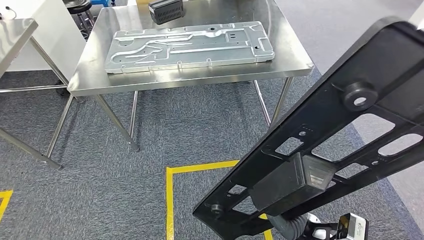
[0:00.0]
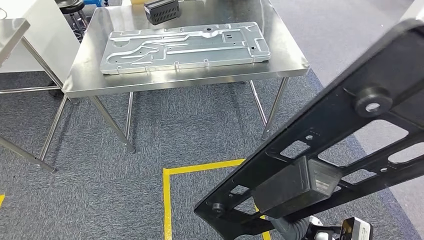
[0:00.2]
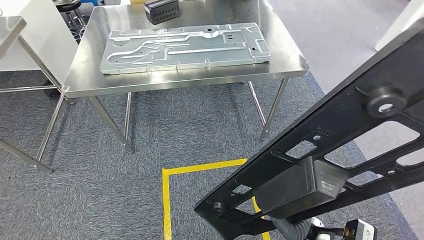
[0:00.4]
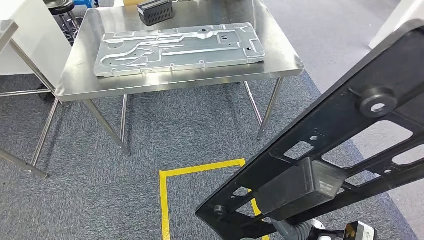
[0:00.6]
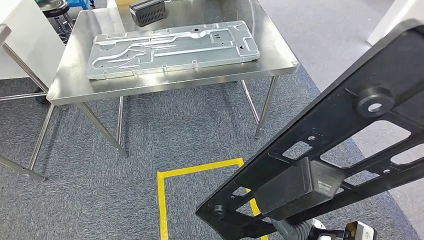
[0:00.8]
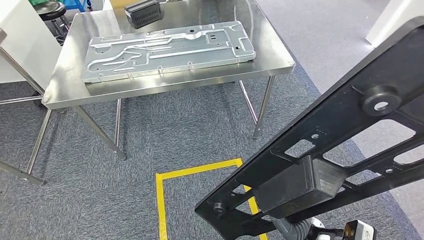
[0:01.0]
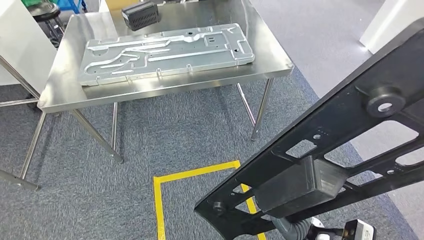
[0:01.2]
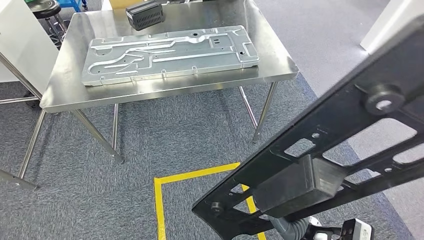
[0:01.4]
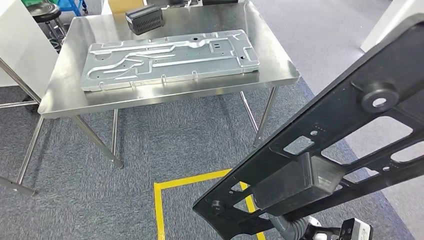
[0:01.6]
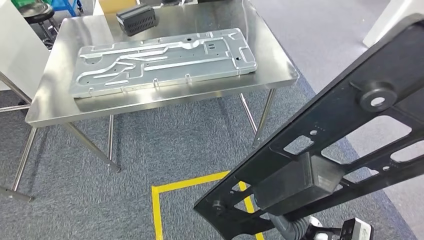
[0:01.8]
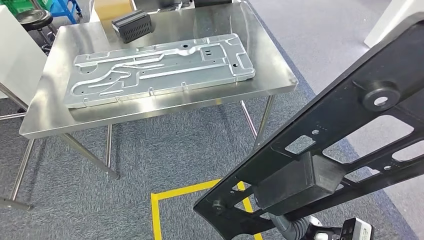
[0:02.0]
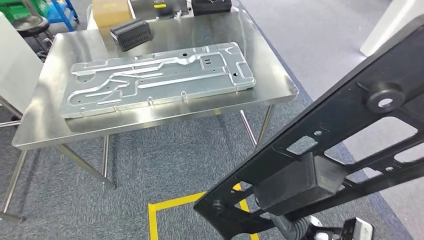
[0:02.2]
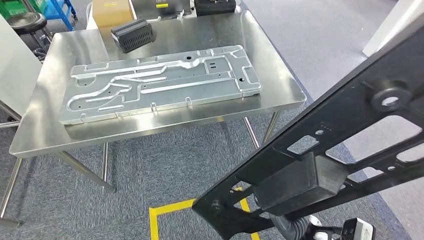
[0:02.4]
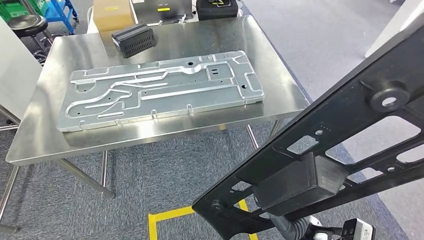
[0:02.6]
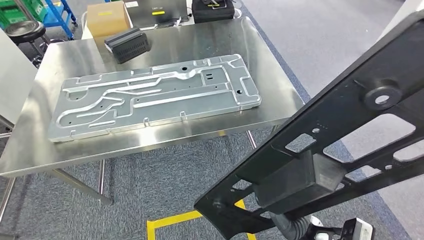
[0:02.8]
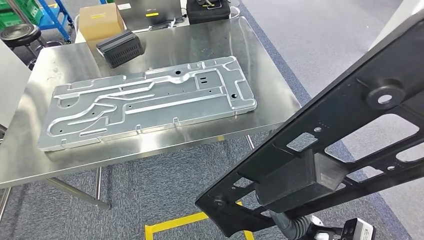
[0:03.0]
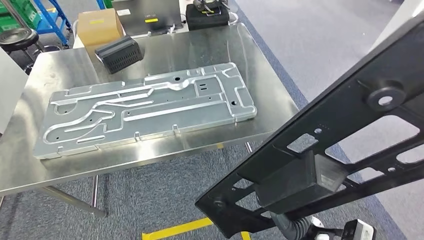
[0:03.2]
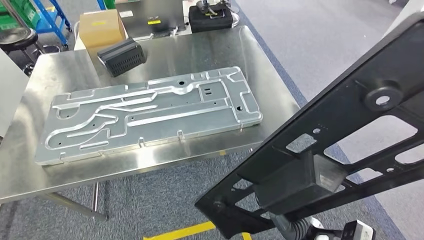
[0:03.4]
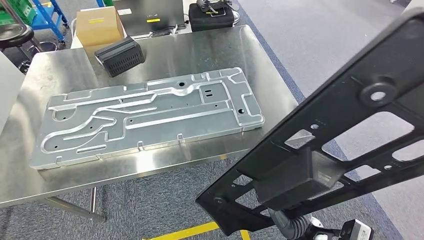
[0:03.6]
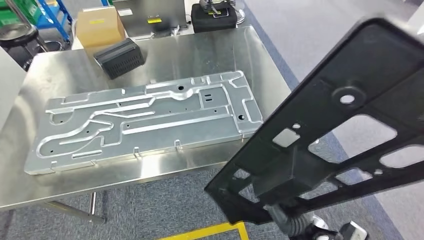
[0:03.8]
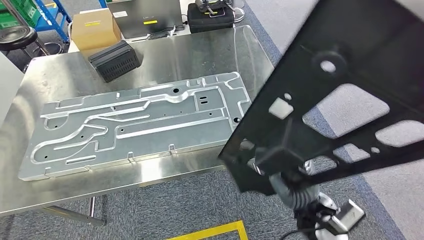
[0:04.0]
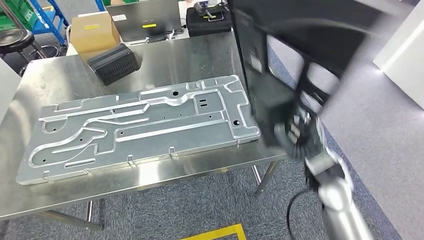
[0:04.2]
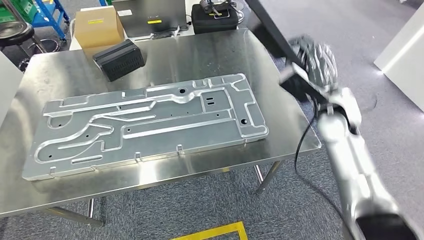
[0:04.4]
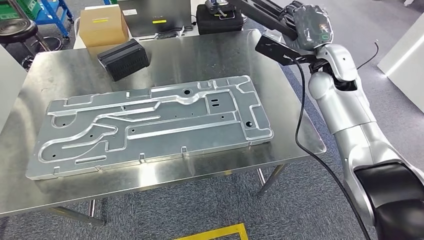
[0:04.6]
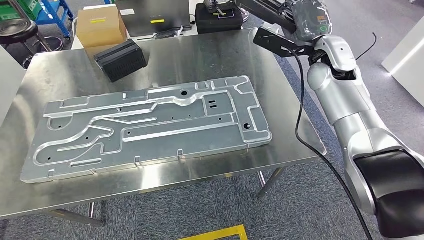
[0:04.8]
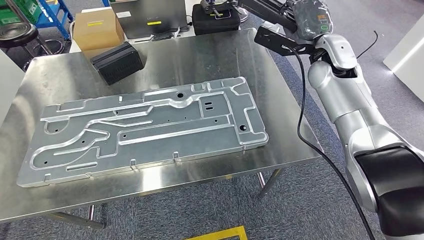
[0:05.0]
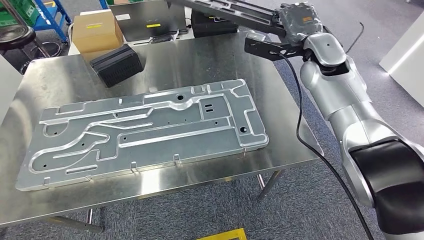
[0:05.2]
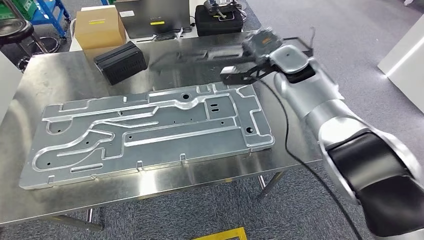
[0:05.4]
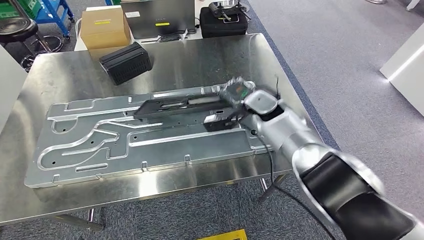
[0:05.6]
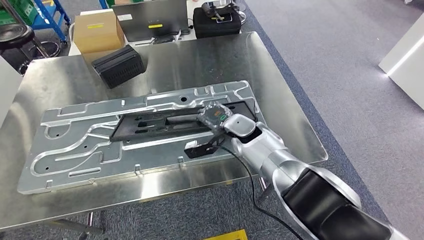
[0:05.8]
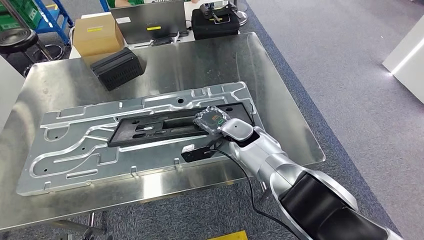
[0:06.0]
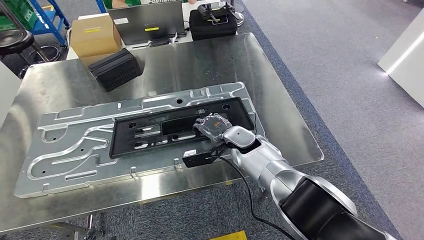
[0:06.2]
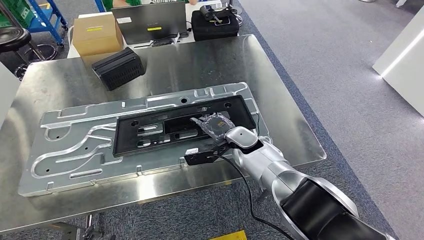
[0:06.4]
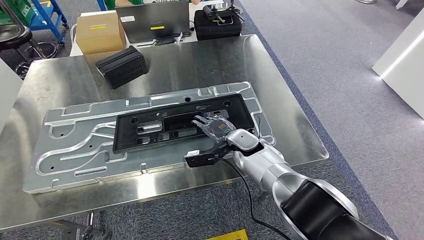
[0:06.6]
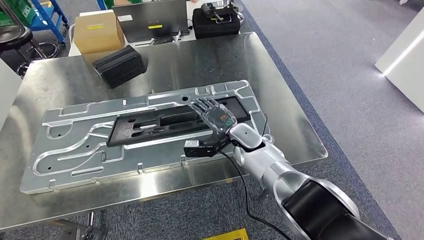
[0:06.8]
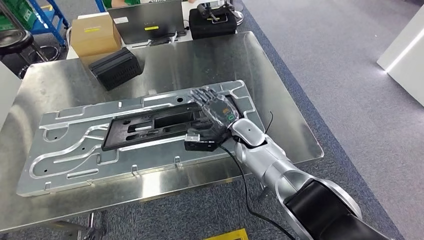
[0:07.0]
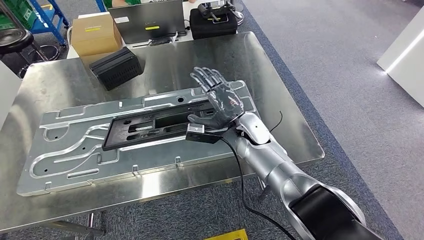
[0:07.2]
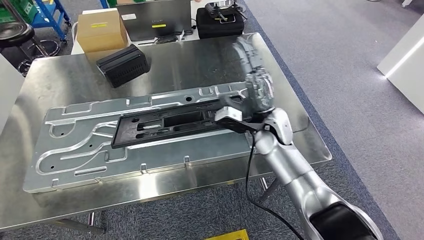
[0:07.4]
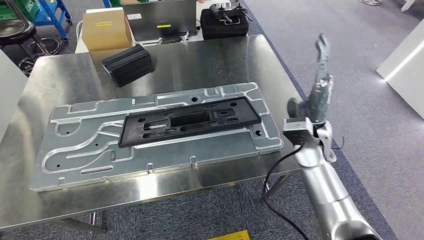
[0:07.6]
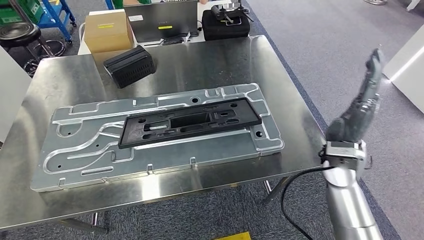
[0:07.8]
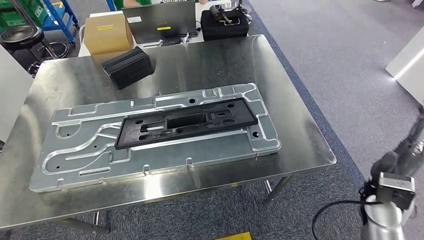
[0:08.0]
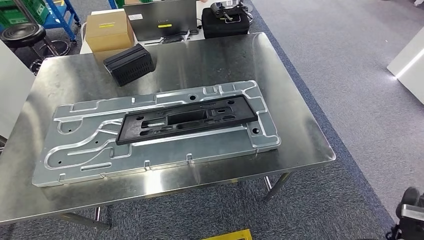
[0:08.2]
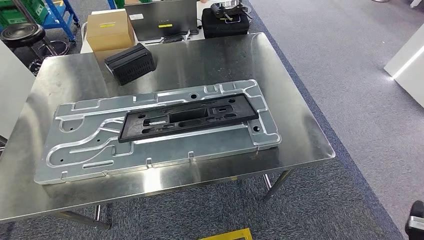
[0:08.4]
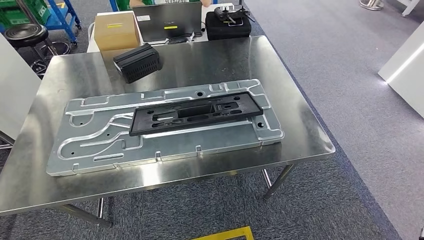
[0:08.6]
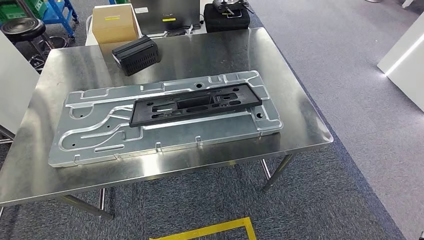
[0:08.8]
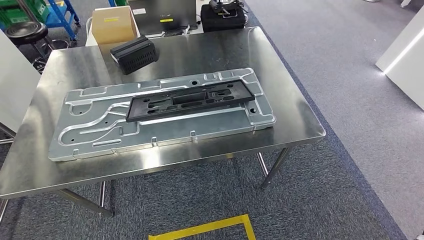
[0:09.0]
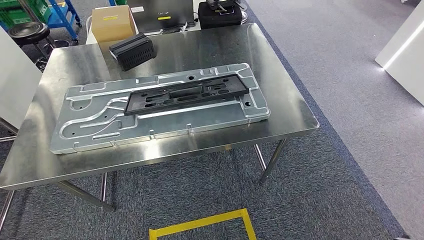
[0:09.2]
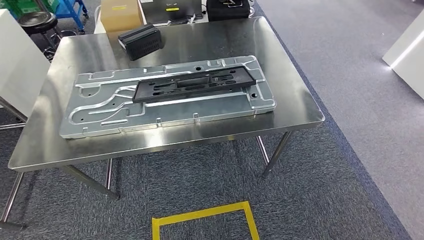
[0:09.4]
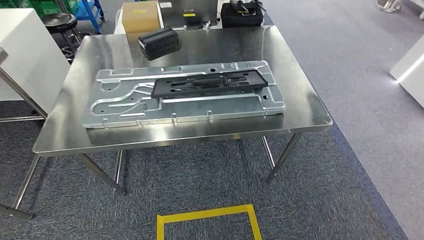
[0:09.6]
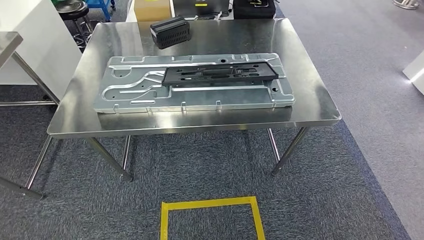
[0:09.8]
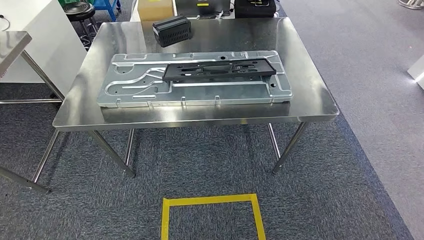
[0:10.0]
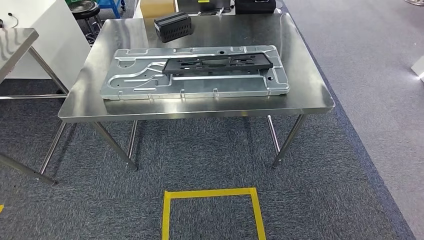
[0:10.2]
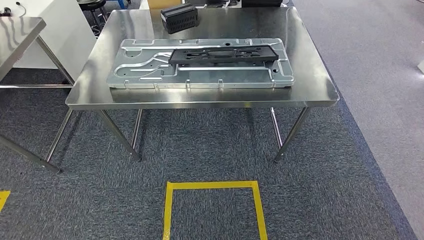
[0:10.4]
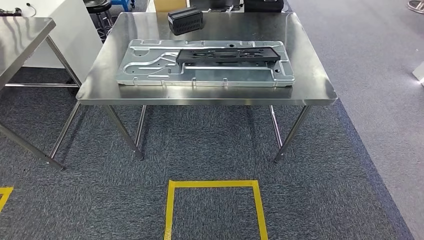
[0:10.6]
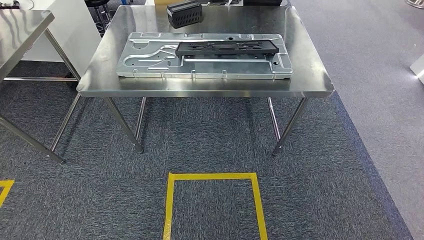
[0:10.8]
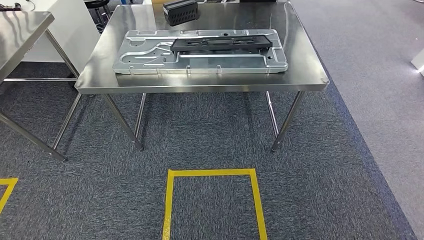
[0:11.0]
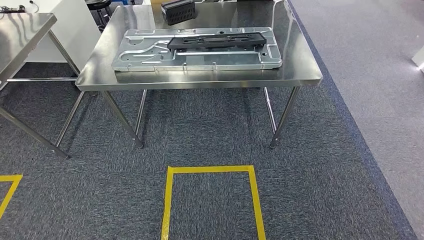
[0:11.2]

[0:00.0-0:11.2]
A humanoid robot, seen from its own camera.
Step, 0:00.0 to 0:04.4: Move the large material to the workbench.
Step, 0:04.6 to 0:08.4: Insert the large material into the corresponding slot on the workbench.

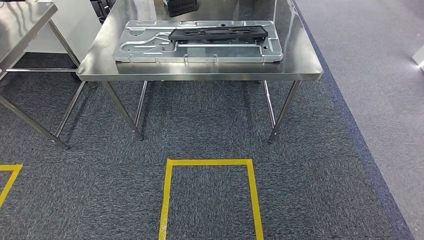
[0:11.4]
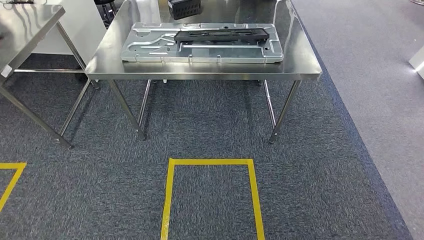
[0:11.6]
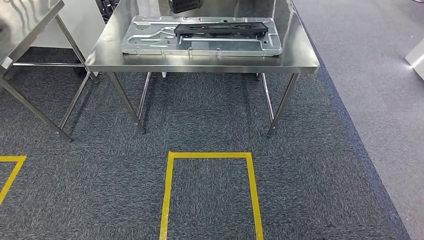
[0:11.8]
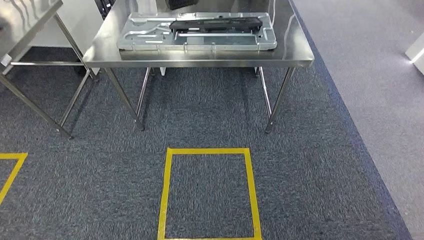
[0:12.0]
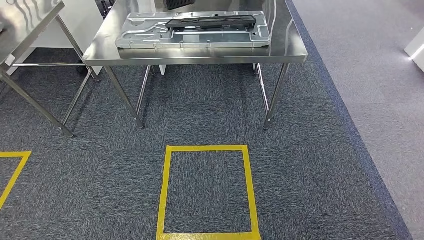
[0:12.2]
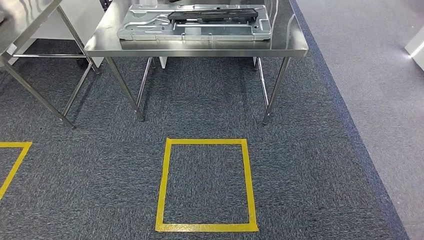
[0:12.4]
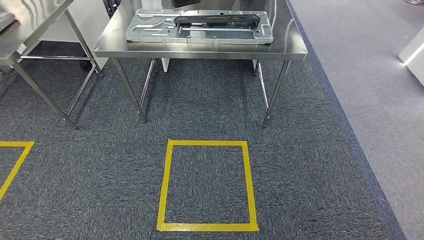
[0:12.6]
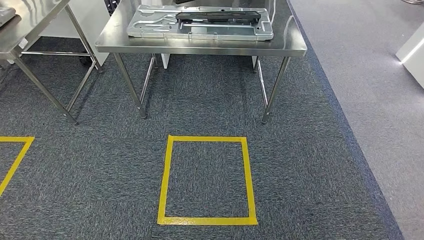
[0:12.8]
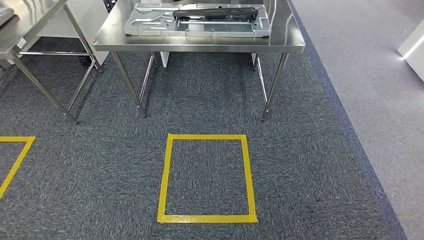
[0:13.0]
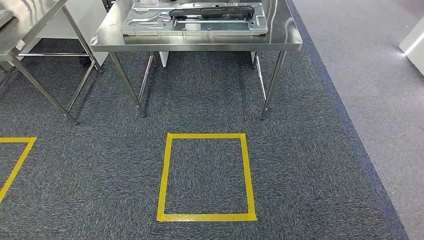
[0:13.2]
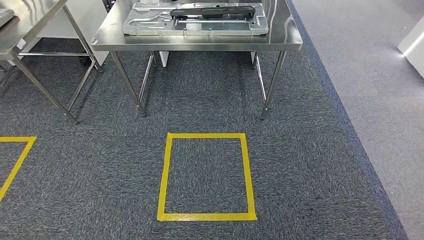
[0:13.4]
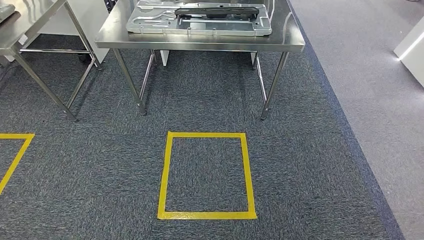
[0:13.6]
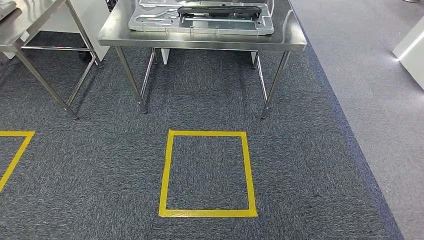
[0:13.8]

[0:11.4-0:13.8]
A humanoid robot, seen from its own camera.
Step, 0:11.4 to 0:13.8: Move to the initial position of the shelf.
0:12.6 to 0:13.8: Both hands stay put.

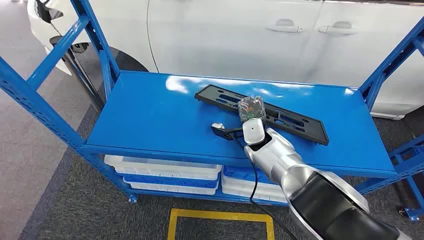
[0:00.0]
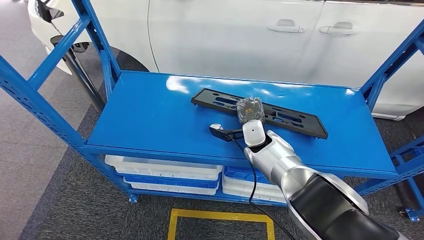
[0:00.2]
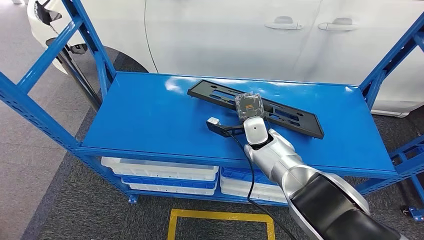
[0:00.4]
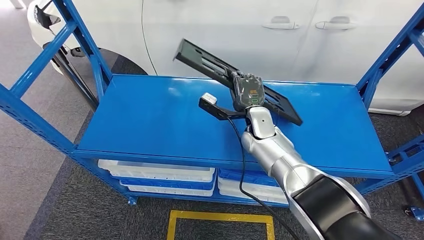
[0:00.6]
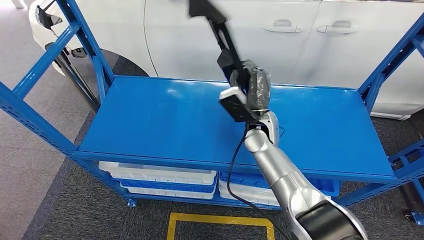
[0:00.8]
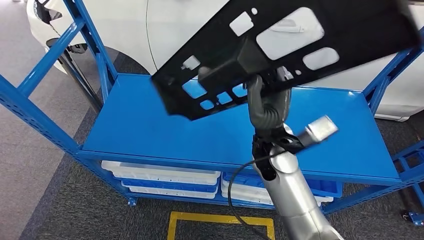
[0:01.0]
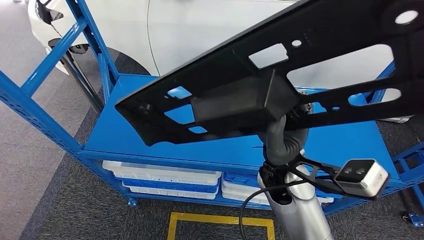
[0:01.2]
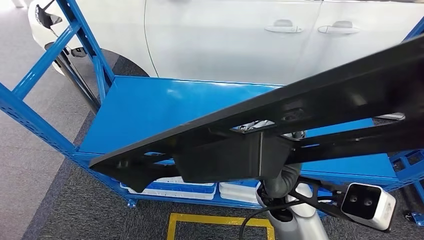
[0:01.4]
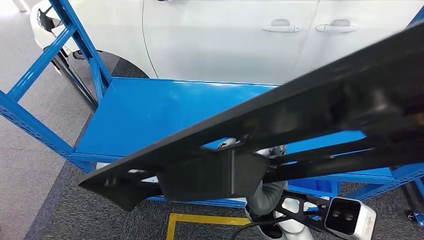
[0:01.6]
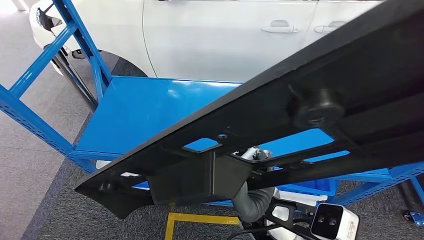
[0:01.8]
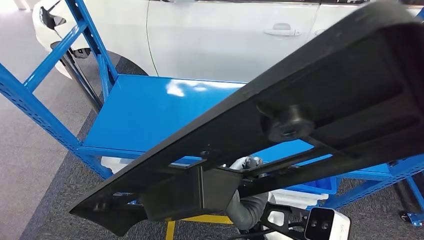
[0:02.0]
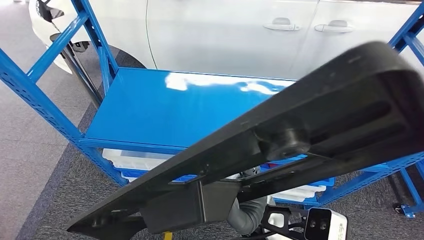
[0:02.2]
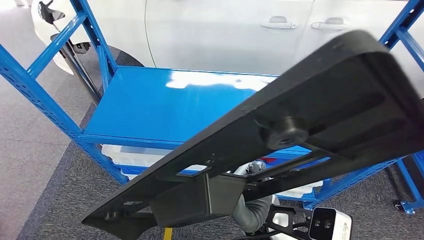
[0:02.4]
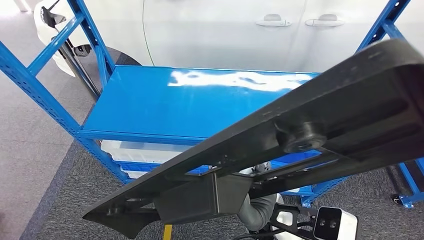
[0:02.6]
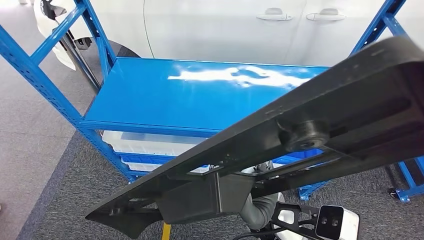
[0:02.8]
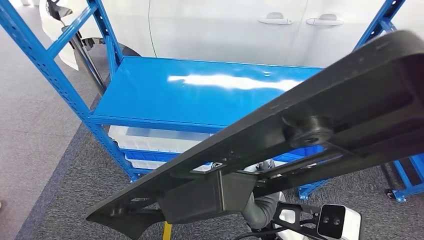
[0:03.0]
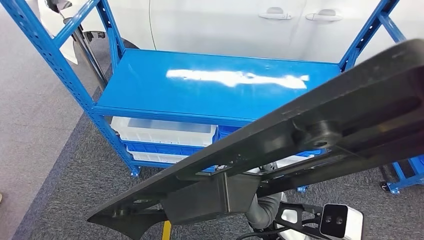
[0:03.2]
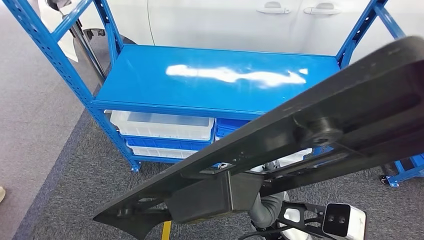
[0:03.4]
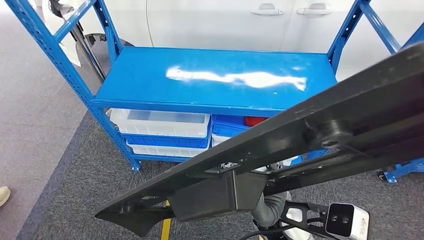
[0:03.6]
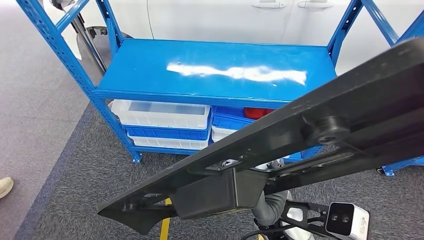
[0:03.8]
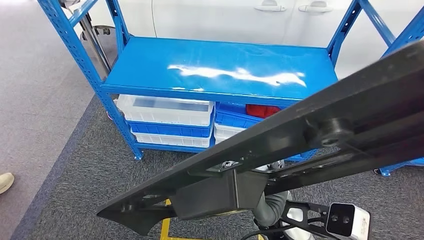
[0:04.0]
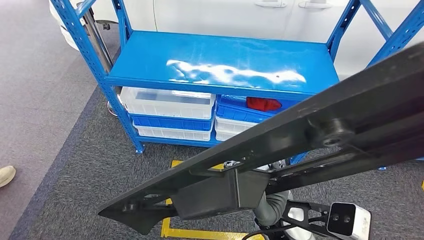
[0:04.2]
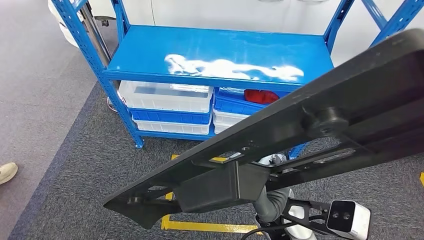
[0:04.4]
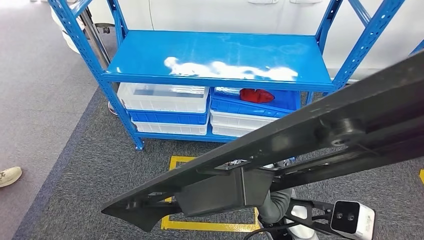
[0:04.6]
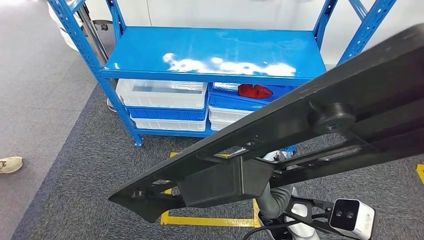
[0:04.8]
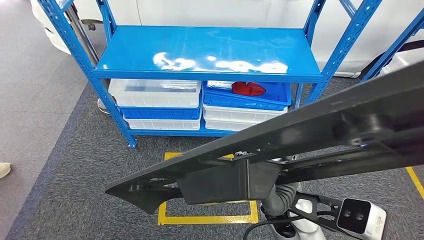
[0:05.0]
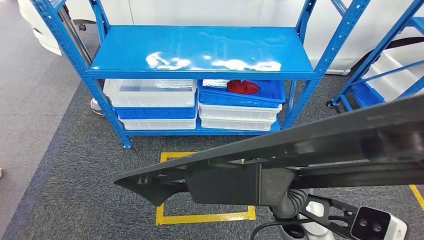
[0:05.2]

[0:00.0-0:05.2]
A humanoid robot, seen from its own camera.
Step, 0:00.0 to 0:02.0: Pick up the large material from the shelf.
